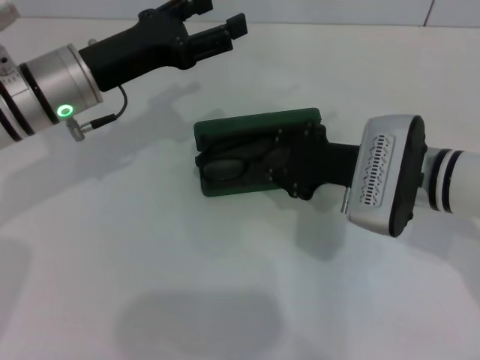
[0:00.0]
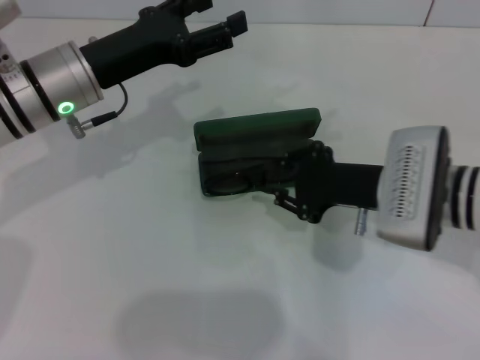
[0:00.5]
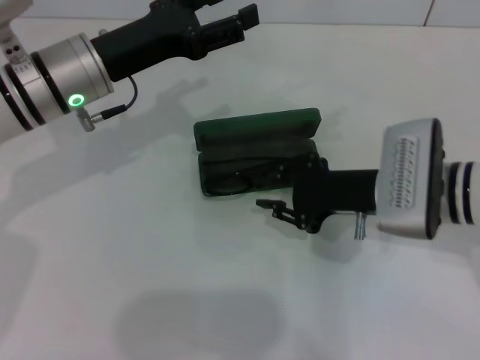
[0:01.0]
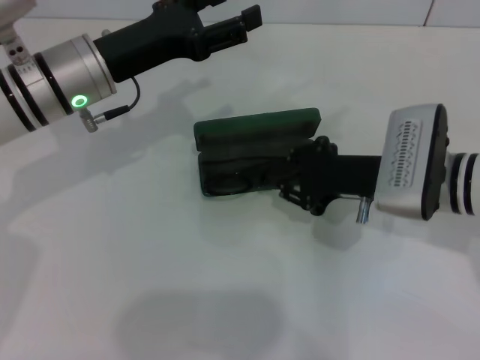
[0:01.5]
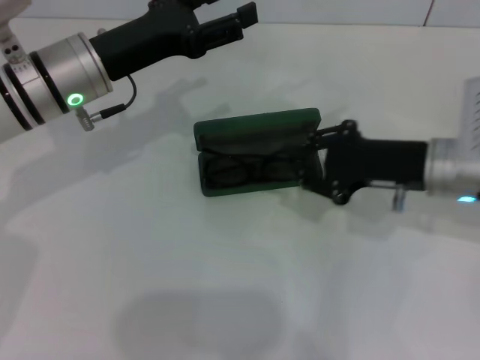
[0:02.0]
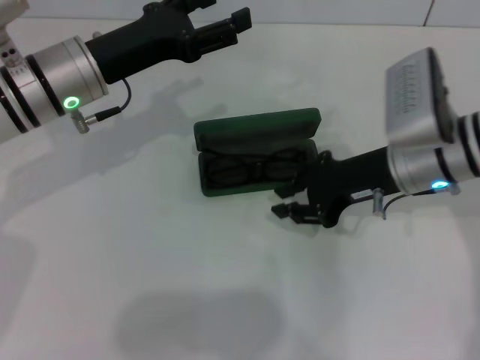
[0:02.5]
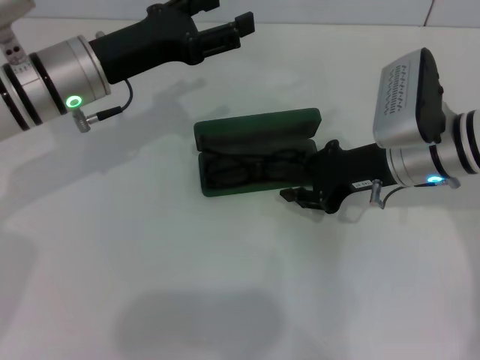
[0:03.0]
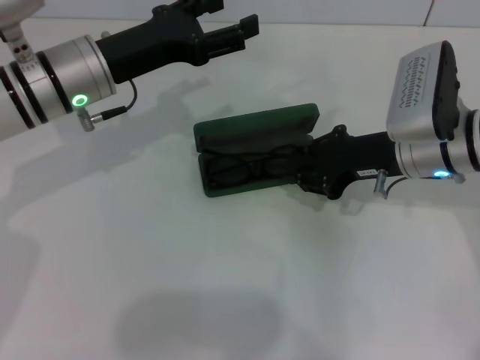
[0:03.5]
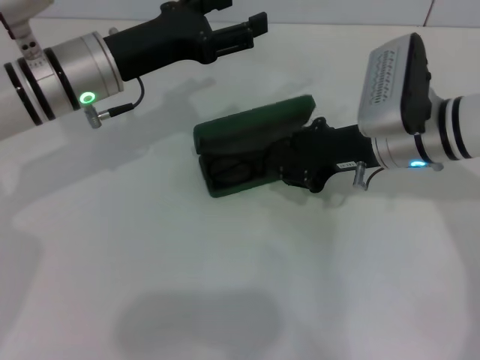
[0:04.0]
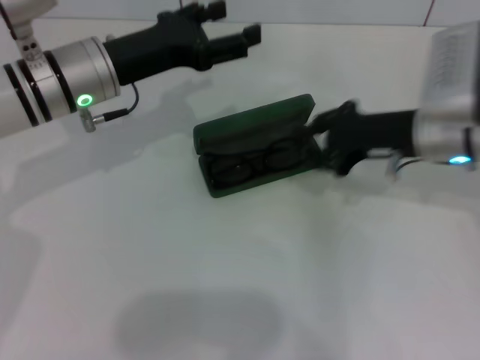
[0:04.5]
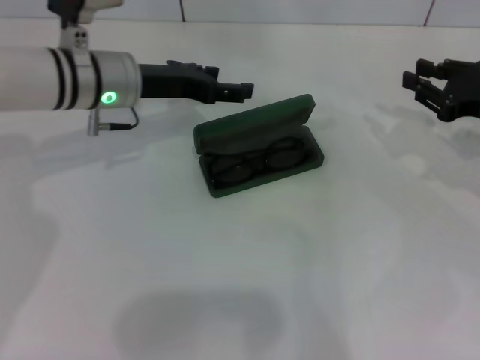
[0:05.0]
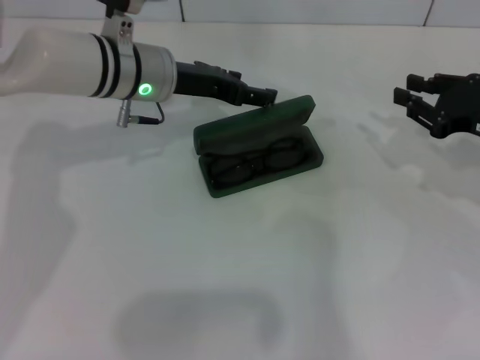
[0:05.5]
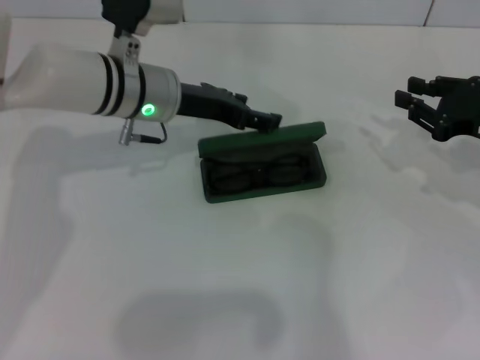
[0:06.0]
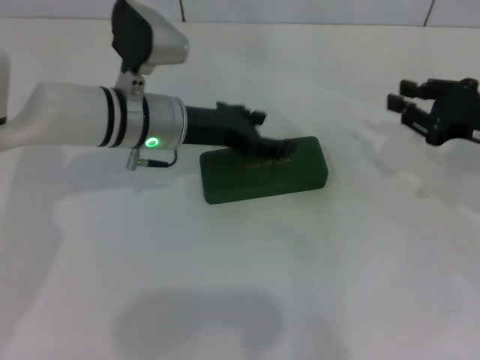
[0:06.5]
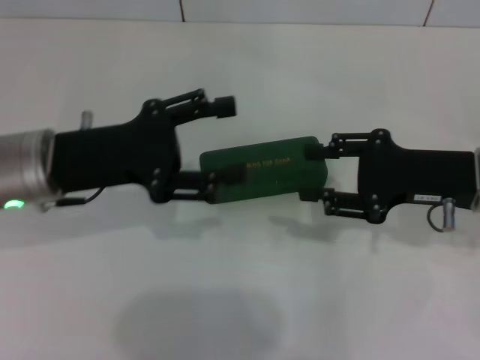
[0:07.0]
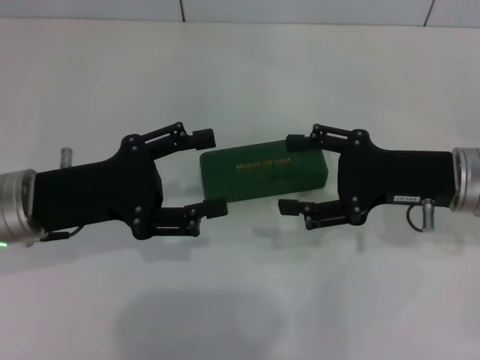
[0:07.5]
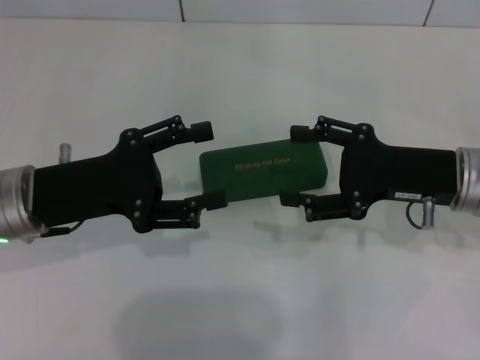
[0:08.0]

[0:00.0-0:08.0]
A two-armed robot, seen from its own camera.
Step, 0:00.0 to 0:04.0: Put the glasses into the case with your right hand.
Step, 0:04.5 to 0:06.0: Close the glasses case with your left hand.
0:00.0 to 0:02.0: The right gripper travels to the right by about 5 cm.
0:02.0 to 0:04.0: The right gripper moves roughly 5 cm.
0:04.0 to 0:06.0: The right gripper travels to the right by approximately 15 cm, while the left gripper goes roughly 5 cm to the right.
0:06.0 to 0:08.0: The left gripper shifts some 15 cm backward and to the left, while the right gripper heads to the left, covering about 10 cm, and opens up.

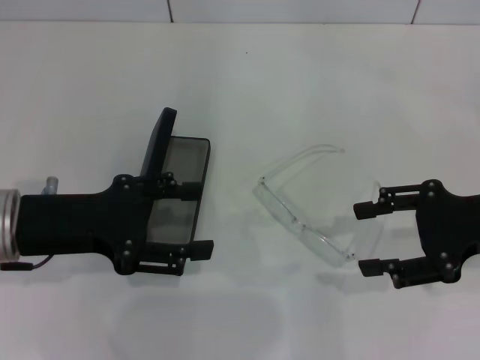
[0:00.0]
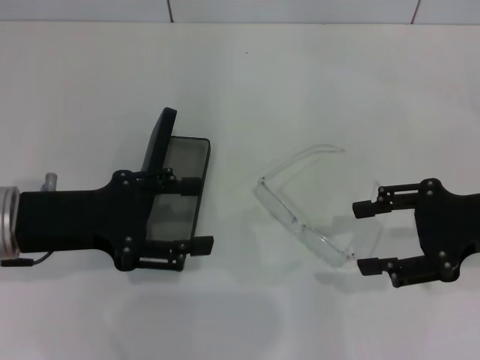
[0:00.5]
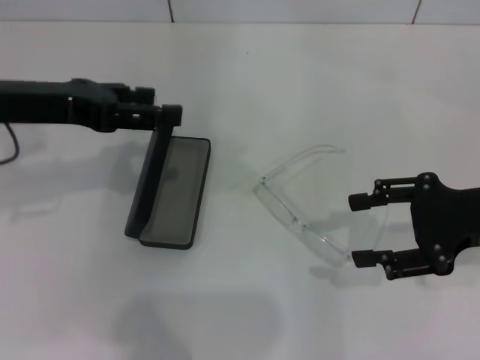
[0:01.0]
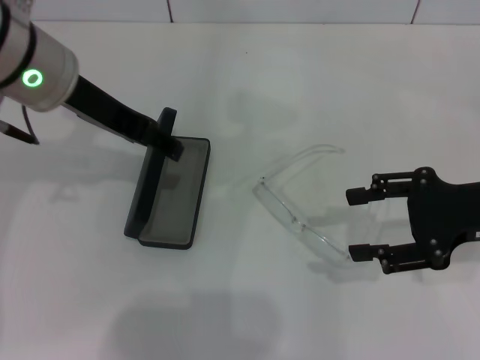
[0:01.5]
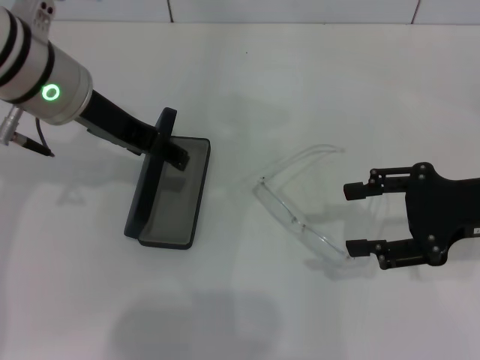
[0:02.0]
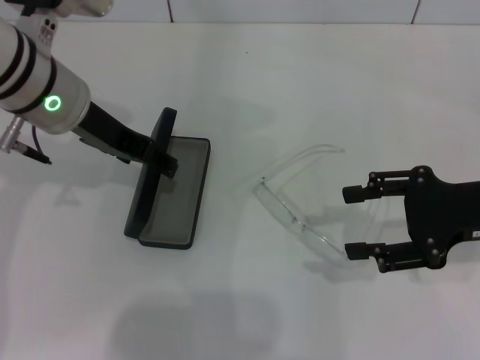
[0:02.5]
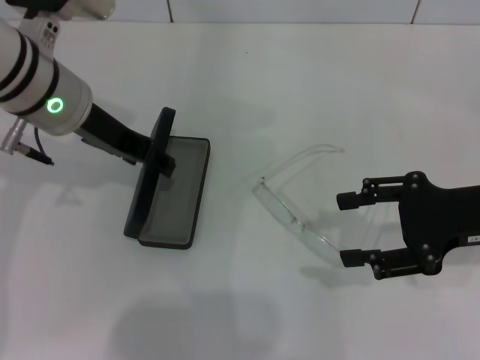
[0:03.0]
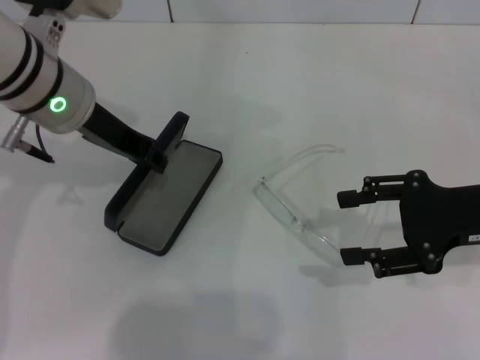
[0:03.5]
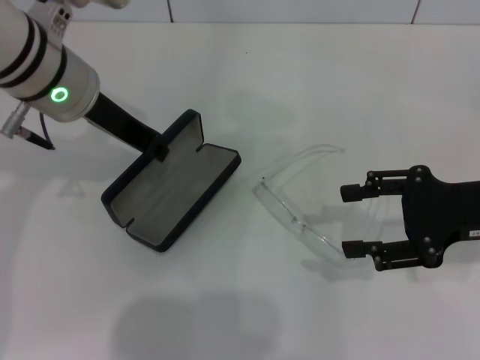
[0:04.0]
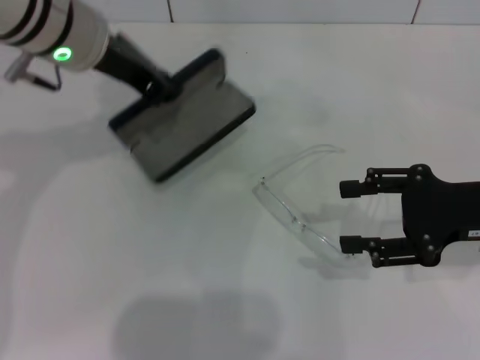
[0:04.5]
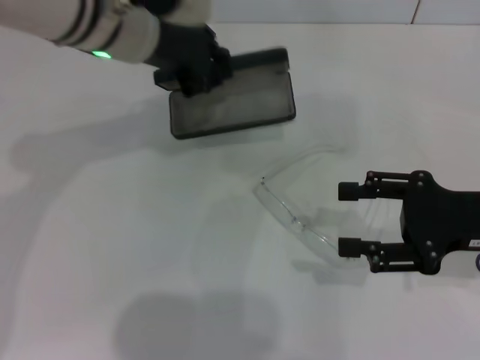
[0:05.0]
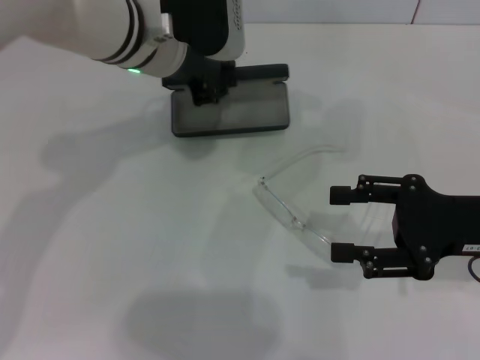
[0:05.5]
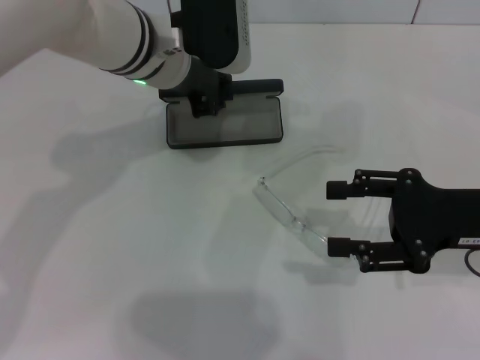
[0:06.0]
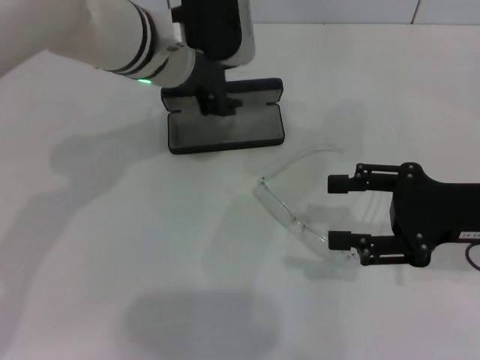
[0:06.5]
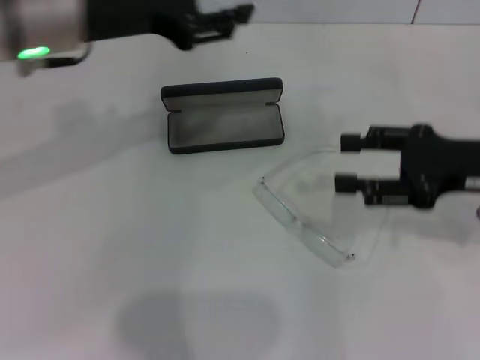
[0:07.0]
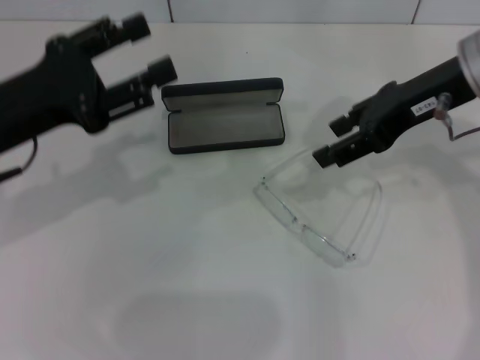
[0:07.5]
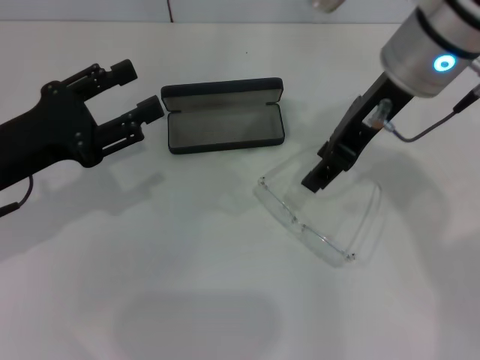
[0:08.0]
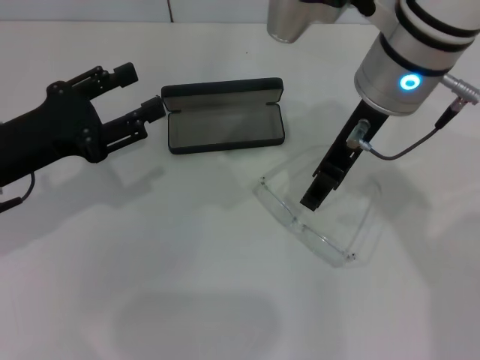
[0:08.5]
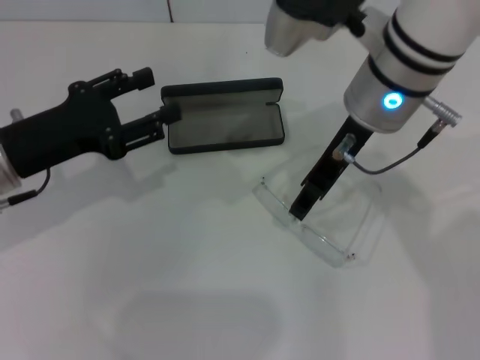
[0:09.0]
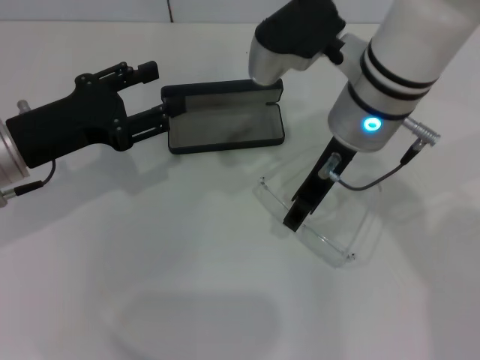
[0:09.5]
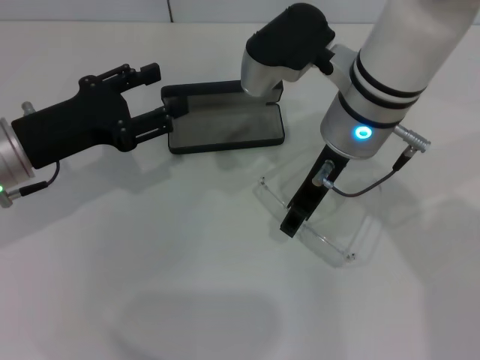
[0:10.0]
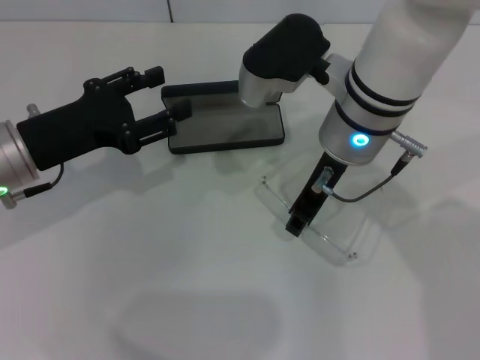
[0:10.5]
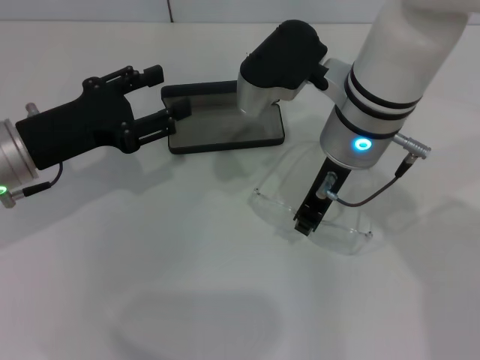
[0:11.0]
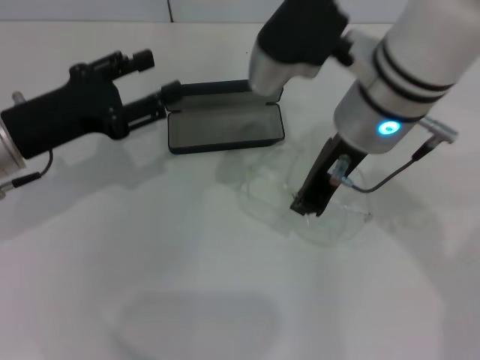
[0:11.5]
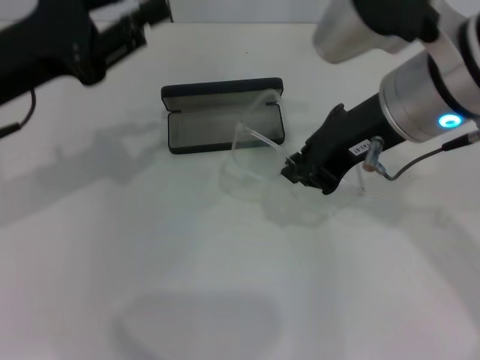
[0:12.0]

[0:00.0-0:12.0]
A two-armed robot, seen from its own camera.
Step, 0:00.0 to 0:04.0: Grab the glasses case with your left hand.
Step, 0:04.5 to 0:06.5: Place the glasses case in the center of the table with your left hand.
Step, 0:07.0 to 0:10.5: Grab the eyeglass frame with your right hand.
0:00.0 to 0:02.0: The left gripper heads forward, upward and to the right, covering approximately 15 cm.
0:02.0 to 0:04.0: The left gripper closes up.
0:04.0 to 0:06.0: The left gripper shifts approximately 5 cm to the right.
0:06.0 to 0:08.0: The right gripper shifts roughly 20 cm to the left, upward and forward. Meanwhile the left gripper moves to the left and backward, about 20 cm, and opens its fingers.
0:08.0 to 0:10.0: The right gripper heads downward, covering approximately 5 cm.
0:10.0 to 0:12.0: The grippers both shift upward by approximately 5 cm. The right gripper closes up.

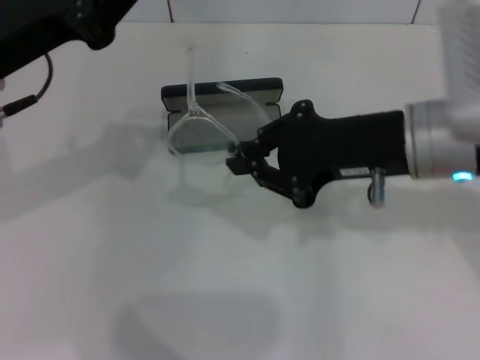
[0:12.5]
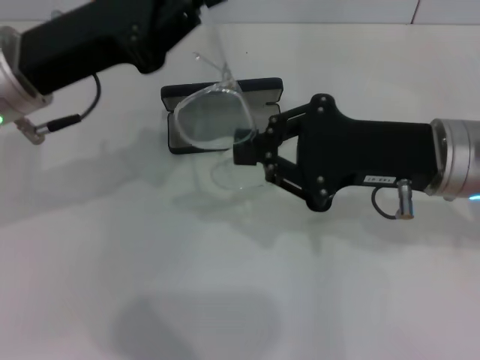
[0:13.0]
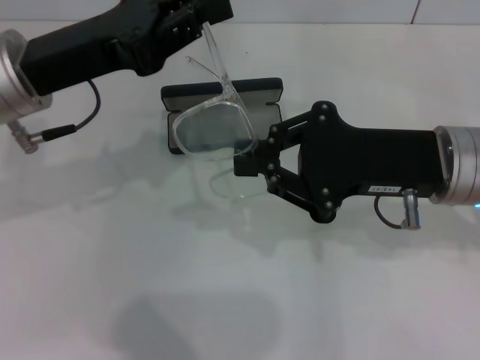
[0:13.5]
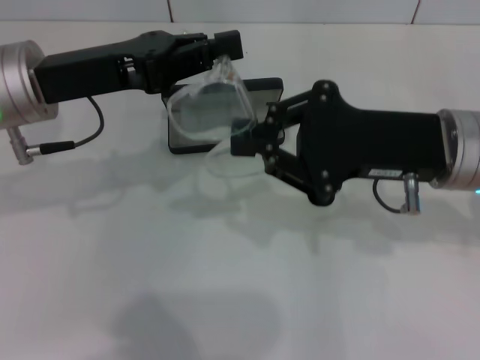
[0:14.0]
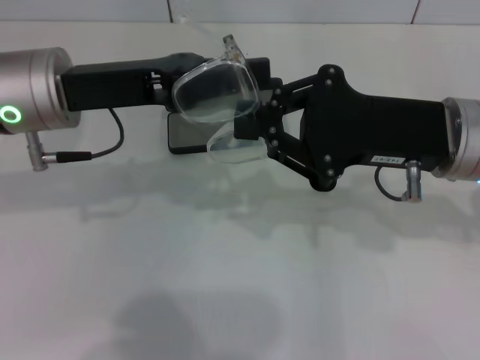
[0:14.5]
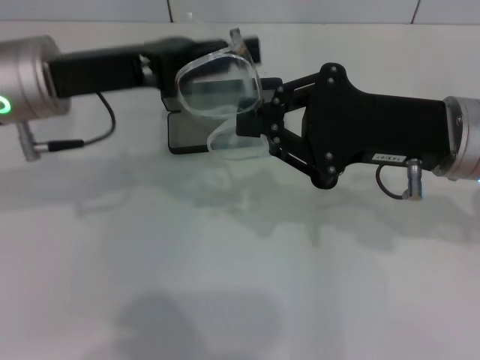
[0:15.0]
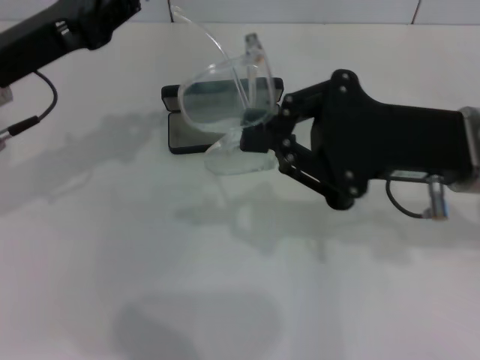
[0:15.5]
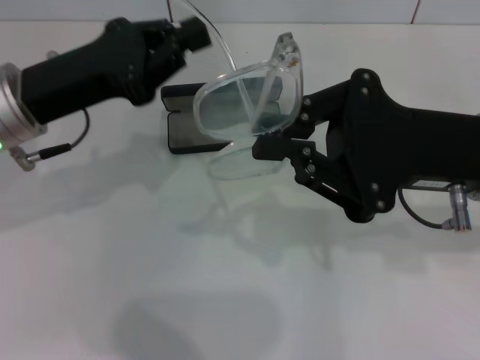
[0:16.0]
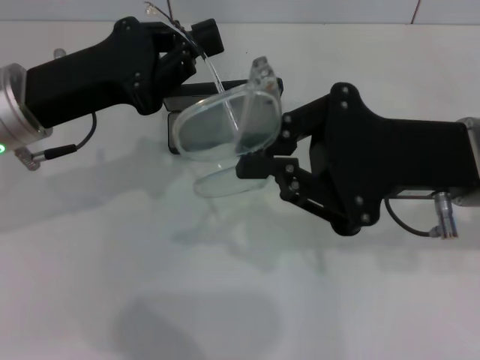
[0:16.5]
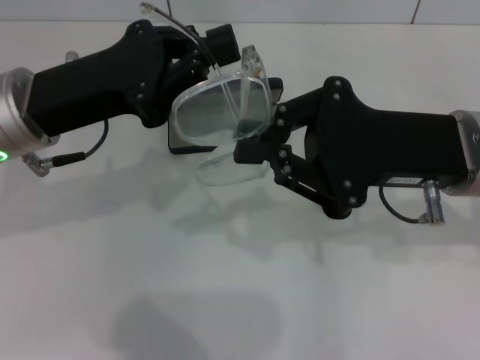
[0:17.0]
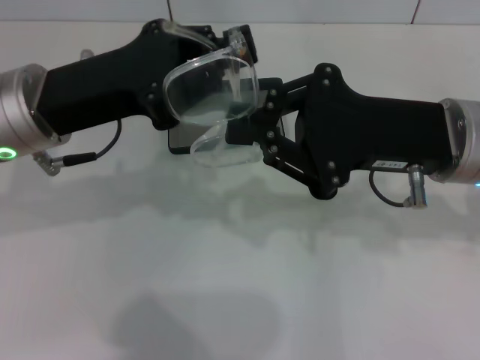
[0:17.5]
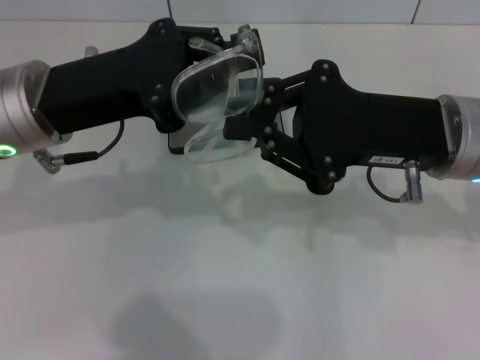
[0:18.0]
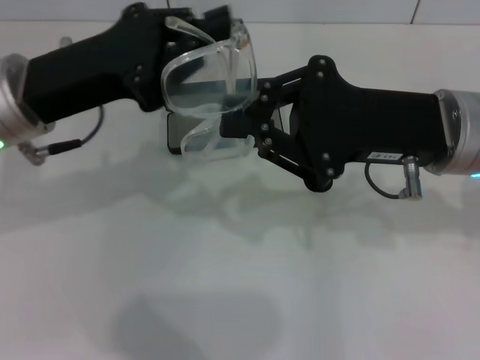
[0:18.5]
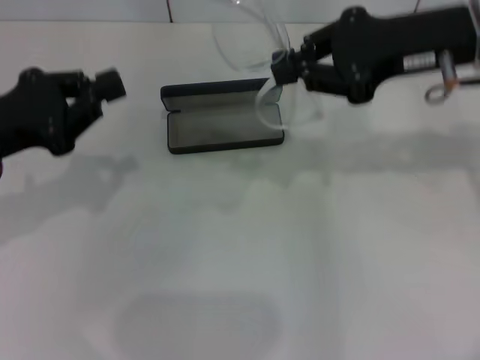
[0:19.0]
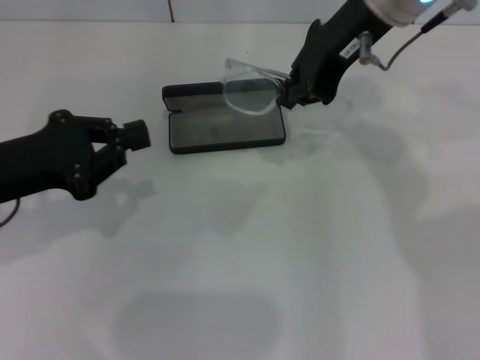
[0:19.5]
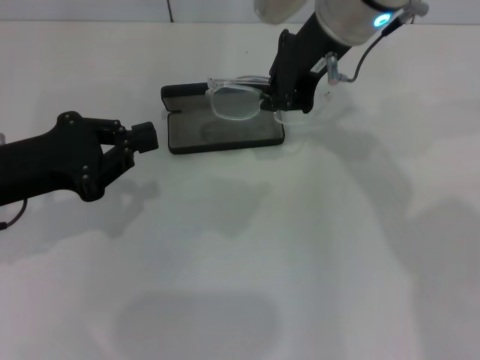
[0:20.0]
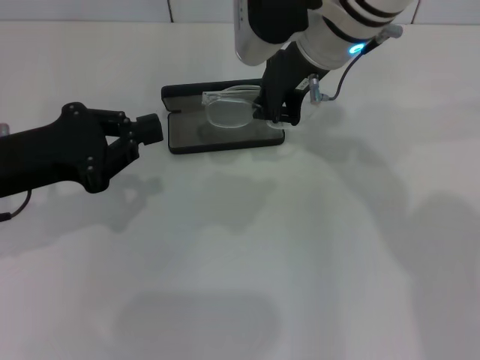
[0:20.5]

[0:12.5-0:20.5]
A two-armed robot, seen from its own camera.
Step, 0:12.5 to 0:18.0: Lift the glasses with your right hand.
0:18.5 to 0:20.5: The right gripper heads to the left and forward, covering approximately 15 cm, while the left gripper travels to the left by approximately 5 cm.
